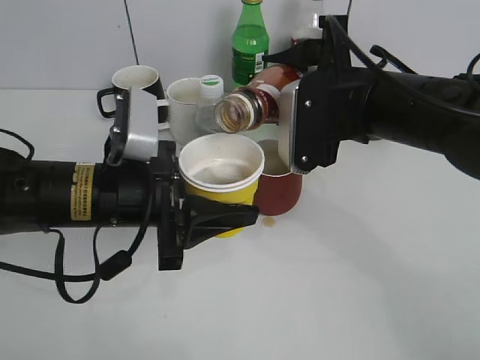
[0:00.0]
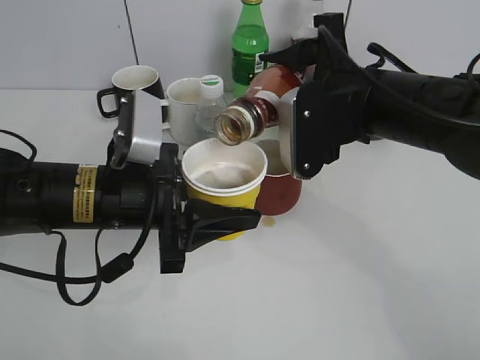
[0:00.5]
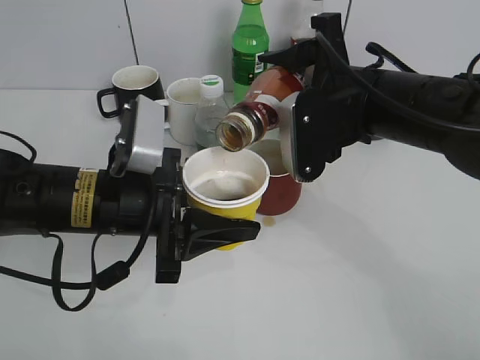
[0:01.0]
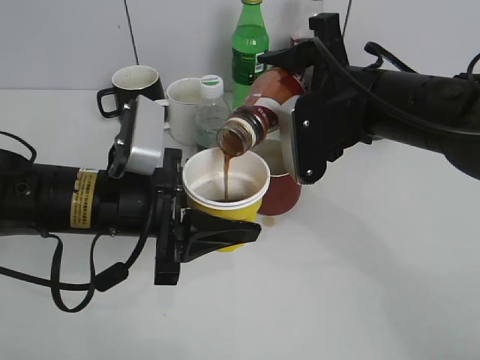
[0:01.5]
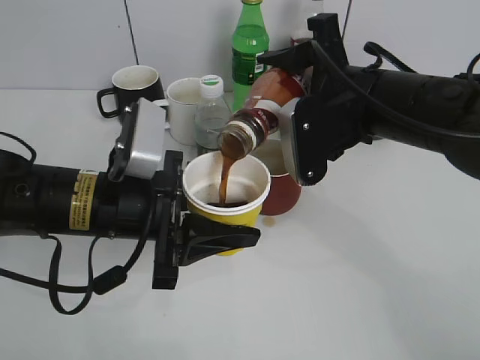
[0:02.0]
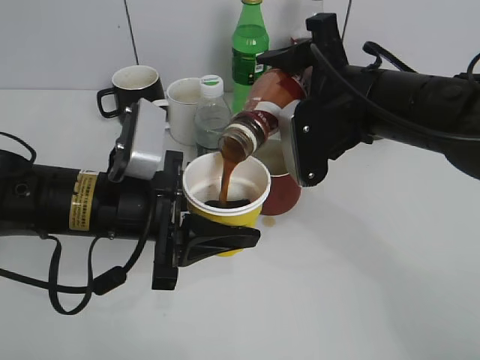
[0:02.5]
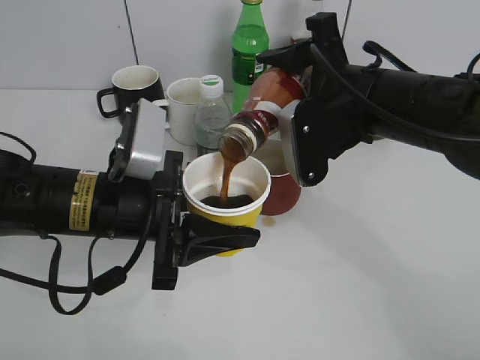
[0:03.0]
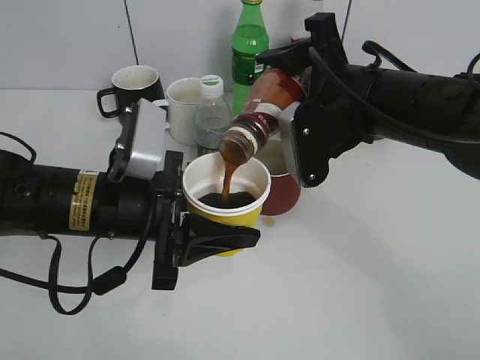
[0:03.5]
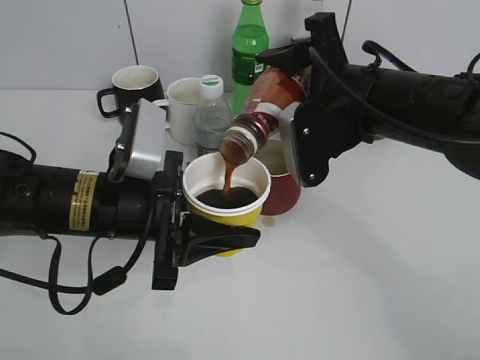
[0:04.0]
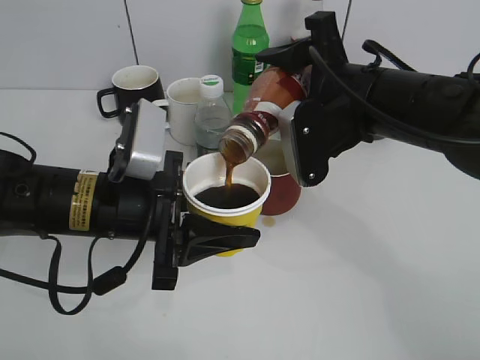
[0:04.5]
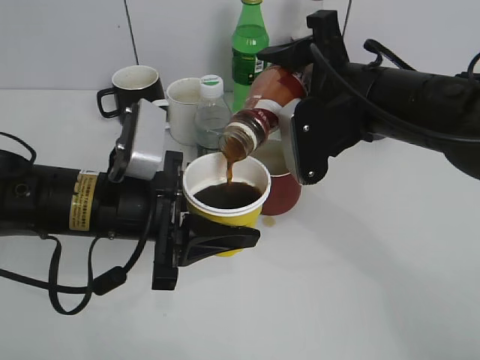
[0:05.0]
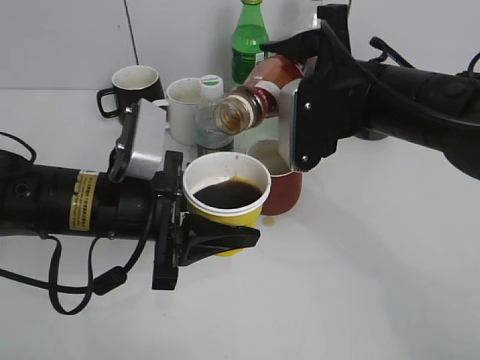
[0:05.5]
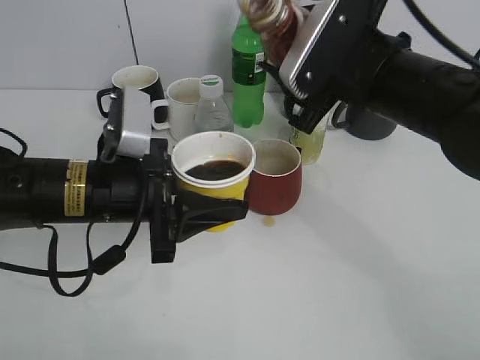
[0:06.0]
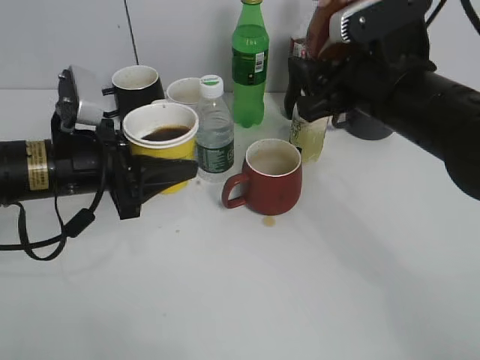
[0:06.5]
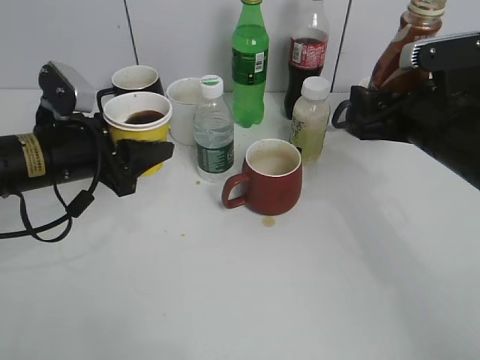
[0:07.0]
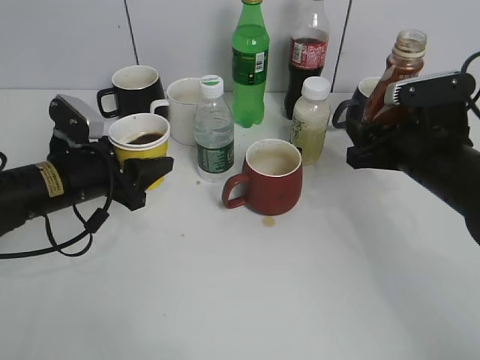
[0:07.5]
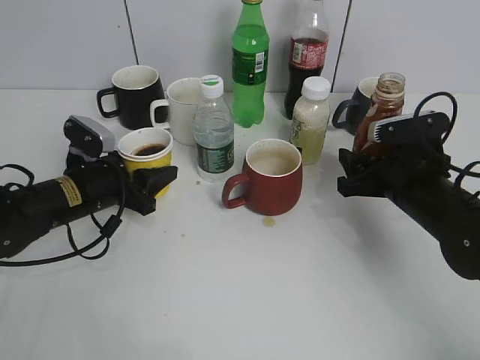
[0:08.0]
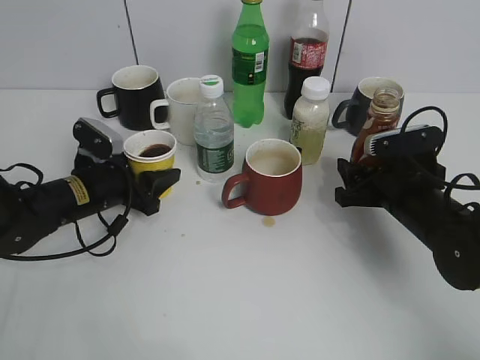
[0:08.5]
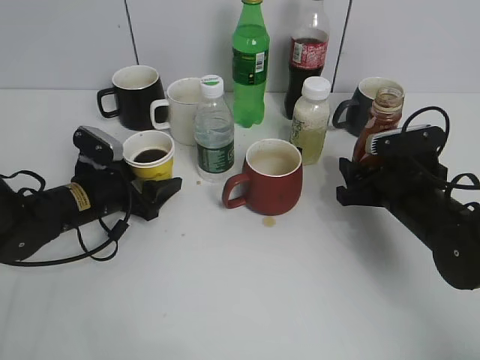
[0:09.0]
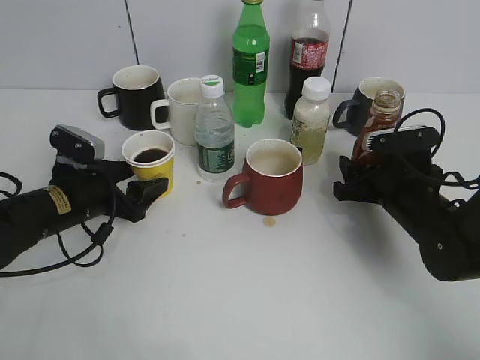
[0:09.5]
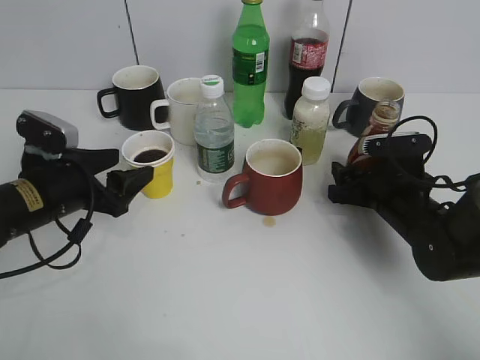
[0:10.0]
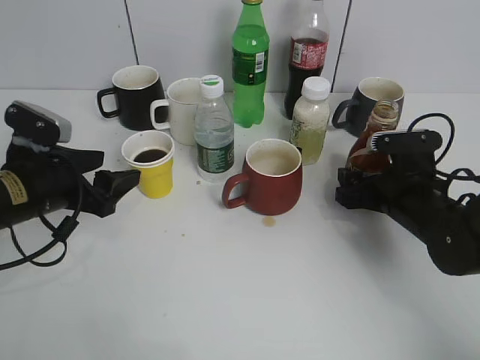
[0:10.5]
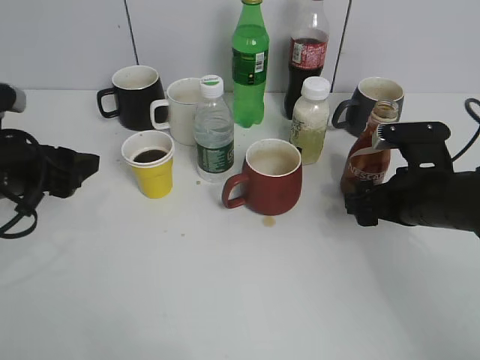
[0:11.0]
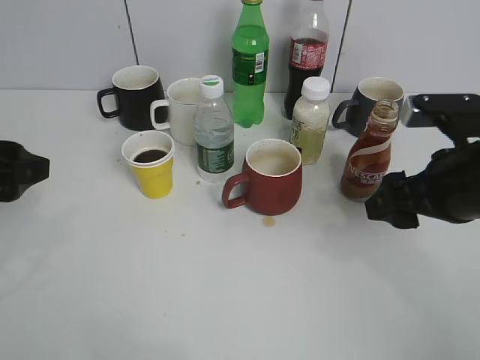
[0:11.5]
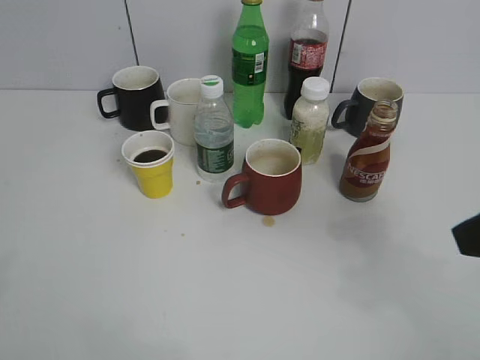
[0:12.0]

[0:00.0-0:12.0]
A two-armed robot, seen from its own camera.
Step, 0:00.0 to 0:06.0: Pour the coffee from bottle to cup with right gripper.
Step, 0:06.5 to 0:10.5: Place the coffee bottle on the table with right gripper.
0:00.0 to 0:02.0: The grippers move only a little.
0:02.0 to 0:04.0: The two grippers keep their place.
0:06.0 to 0:08.0: The right gripper shifts about 15 cm downward and to the right. Meanwhile the left gripper travels downward, forward and to the left by roughly 15 cm.
0:08.0 to 0:10.0: The right gripper opens up, while the left gripper ends up roughly 5 cm from where it was, and opens.
0:10.0 to 0:12.0: Both grippers travel together upward and backward, roughly 30 cm.
